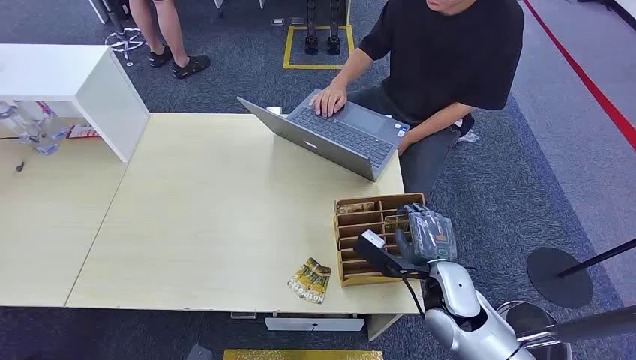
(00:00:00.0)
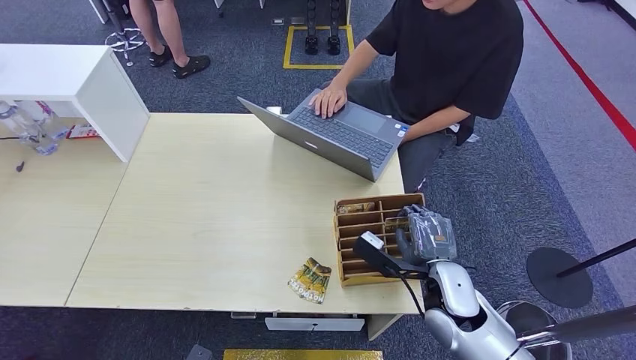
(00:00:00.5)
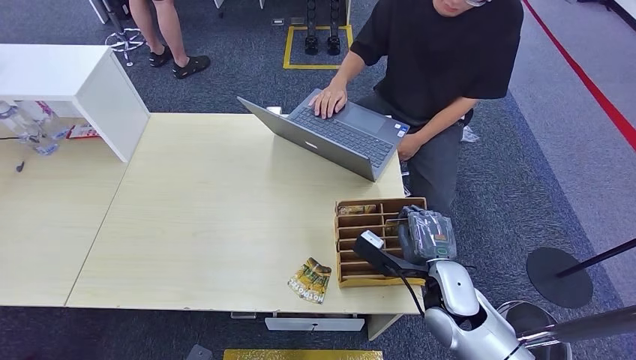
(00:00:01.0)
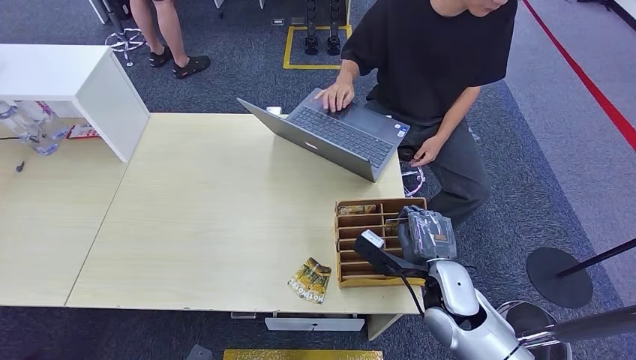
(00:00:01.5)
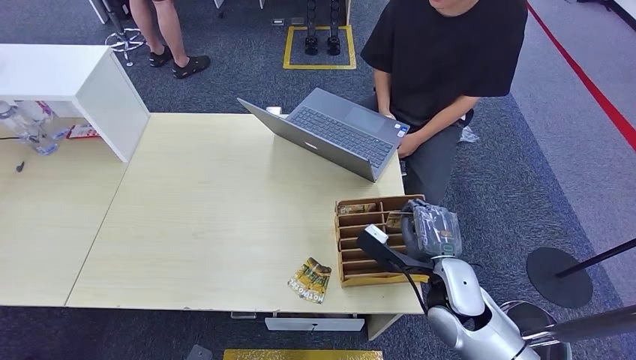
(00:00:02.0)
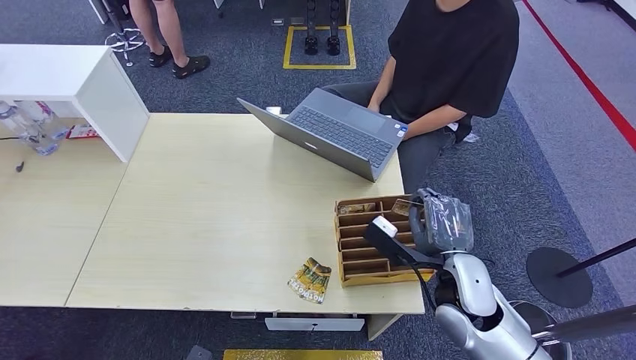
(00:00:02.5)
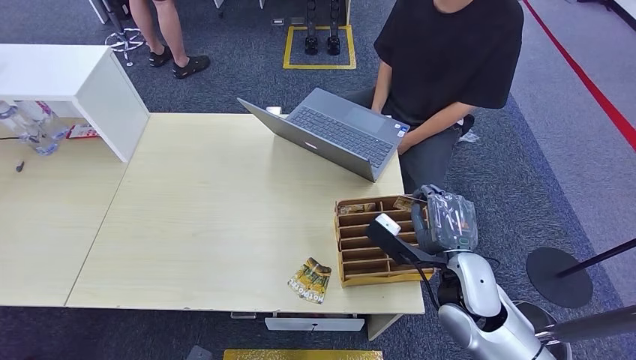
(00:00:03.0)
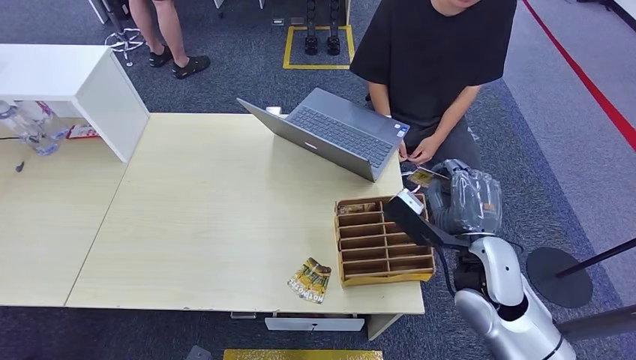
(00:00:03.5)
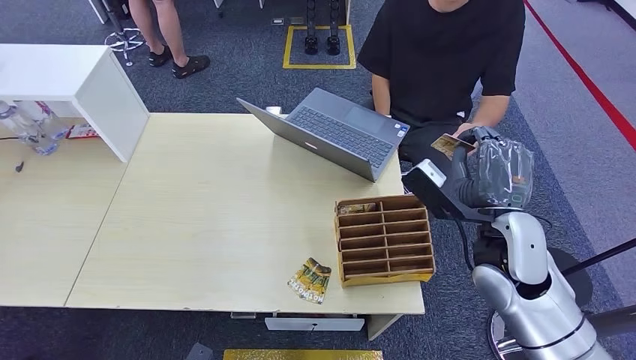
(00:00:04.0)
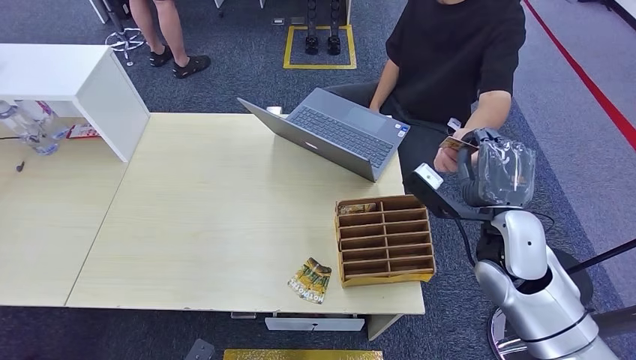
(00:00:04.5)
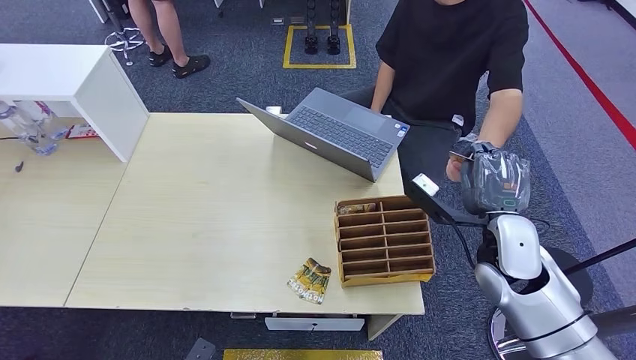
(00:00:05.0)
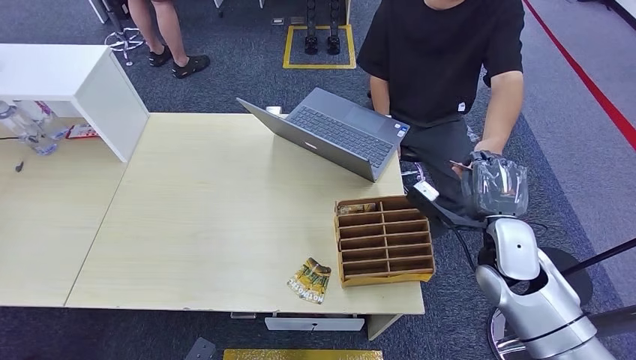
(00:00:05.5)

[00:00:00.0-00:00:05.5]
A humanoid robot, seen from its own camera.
Step, 00:00:00.0 to 00:00:02.5: Pick up the room card from the card holder.
Step, 00:00:03.0 to 00:00:05.5: Hand the room card to the target.
00:00:02.0 to 00:00:03.5: The right hand heads upward, covering approximately 5 cm.
00:00:03.5 to 00:00:05.5: The right hand moves to the right, roughly 5 cm.
